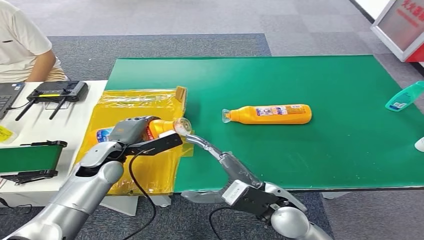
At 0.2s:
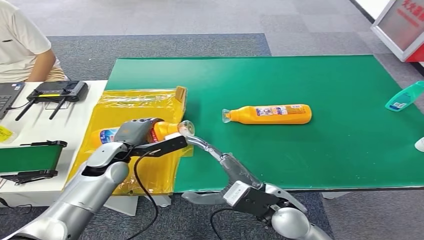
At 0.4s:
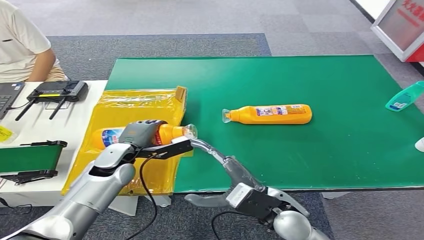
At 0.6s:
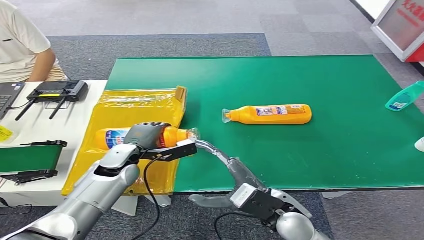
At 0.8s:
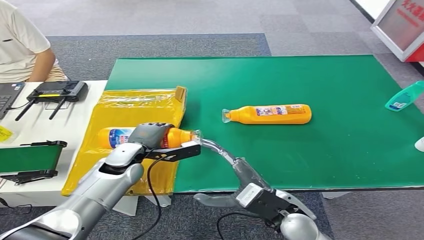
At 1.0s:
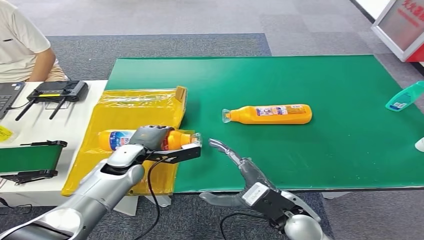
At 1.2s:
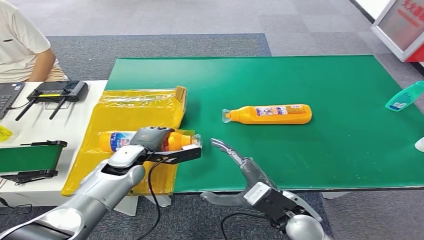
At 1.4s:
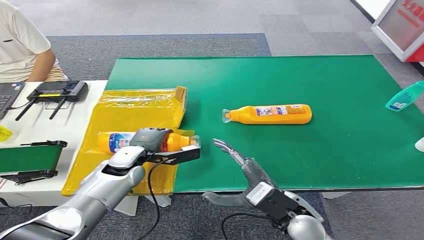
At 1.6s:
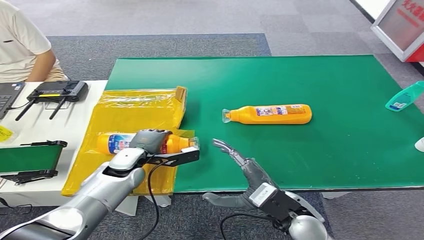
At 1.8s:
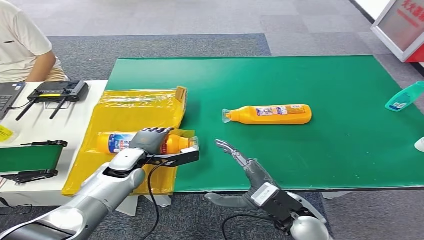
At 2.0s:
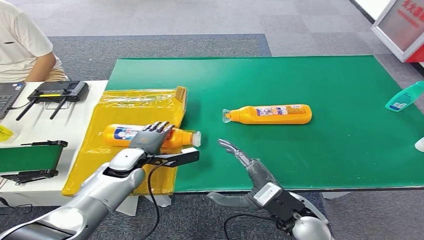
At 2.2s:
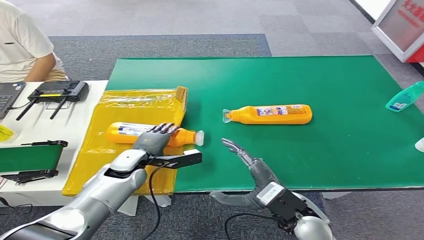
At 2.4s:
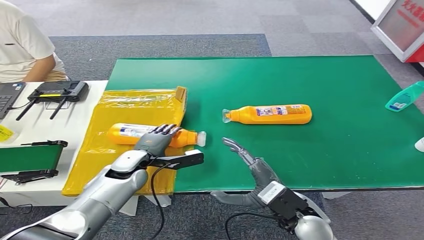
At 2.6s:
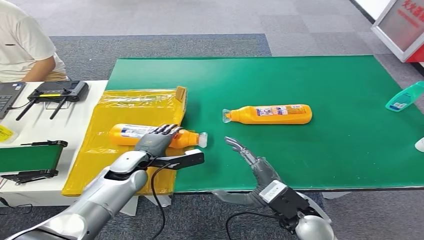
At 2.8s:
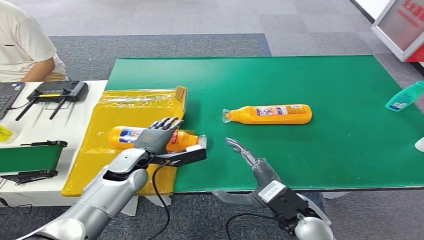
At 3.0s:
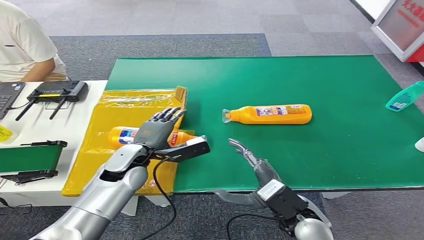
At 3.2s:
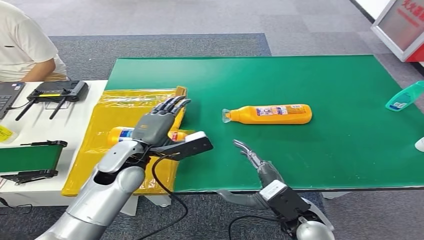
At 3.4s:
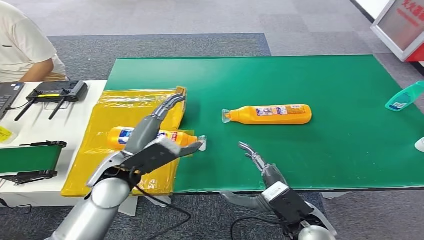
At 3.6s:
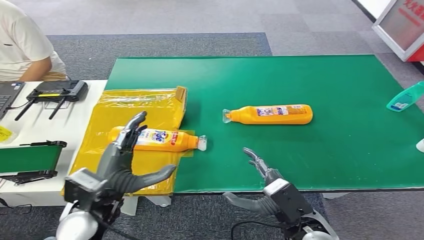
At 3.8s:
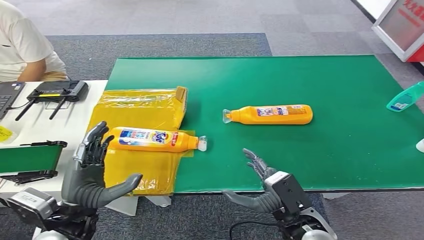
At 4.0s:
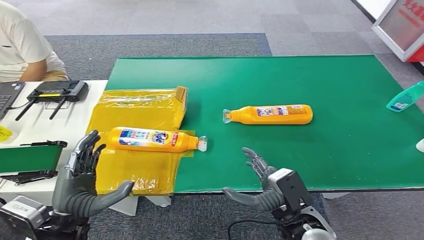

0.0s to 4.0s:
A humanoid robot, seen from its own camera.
Step, 0.0s to 4.0s: Turn the bottle to the front side.
0.0s to 1.4s: The left hand moves about 5 cm.
1.4s to 2.6s: The hands stay close to where they were, moving slightly.
2.6s to 4.0s: The left hand shifts about 20 cm backward and upward.
